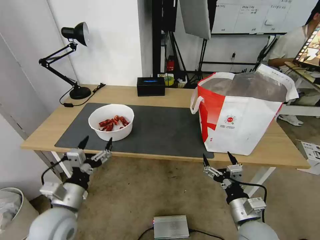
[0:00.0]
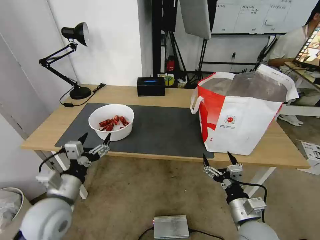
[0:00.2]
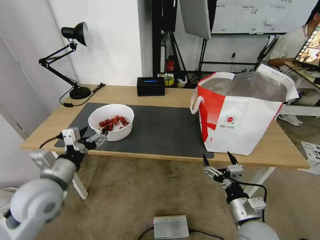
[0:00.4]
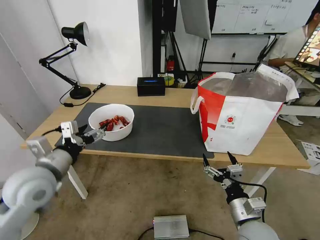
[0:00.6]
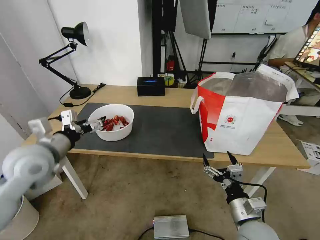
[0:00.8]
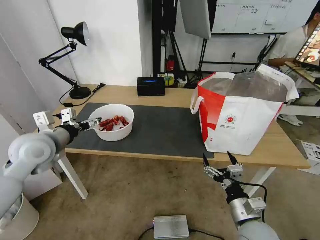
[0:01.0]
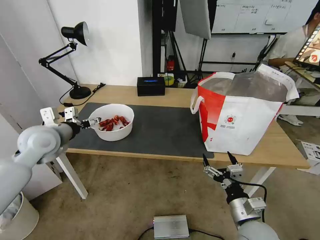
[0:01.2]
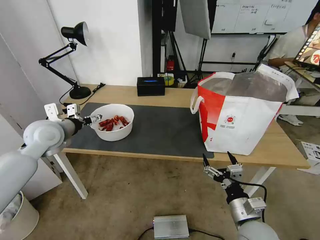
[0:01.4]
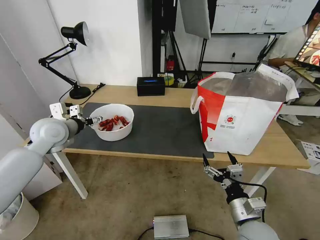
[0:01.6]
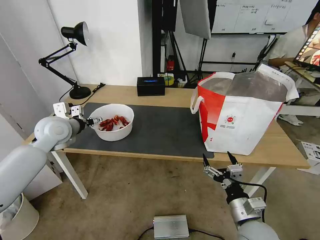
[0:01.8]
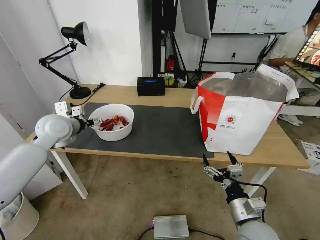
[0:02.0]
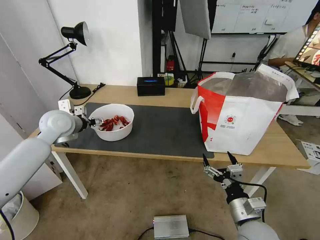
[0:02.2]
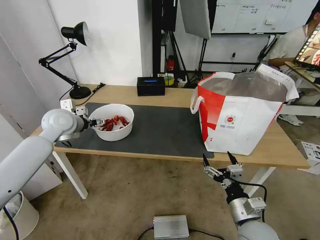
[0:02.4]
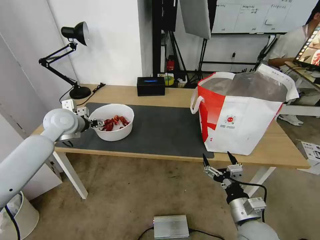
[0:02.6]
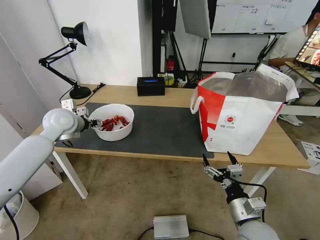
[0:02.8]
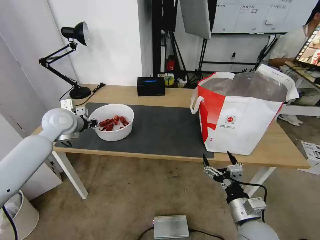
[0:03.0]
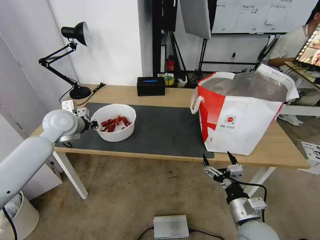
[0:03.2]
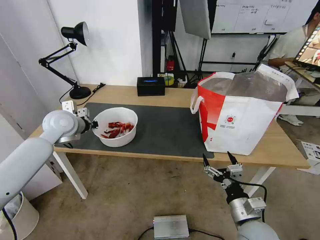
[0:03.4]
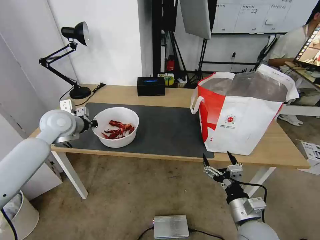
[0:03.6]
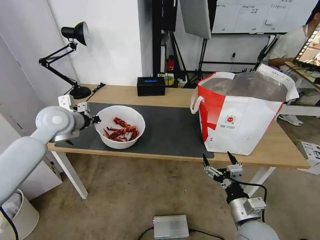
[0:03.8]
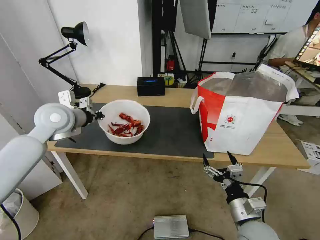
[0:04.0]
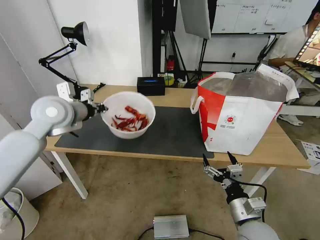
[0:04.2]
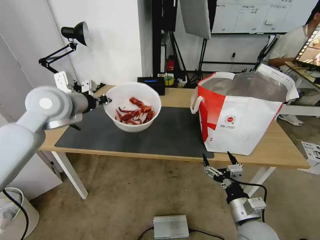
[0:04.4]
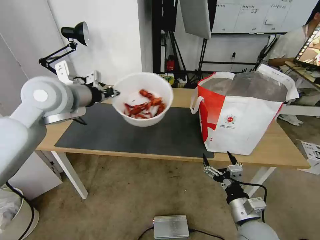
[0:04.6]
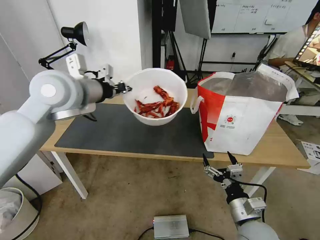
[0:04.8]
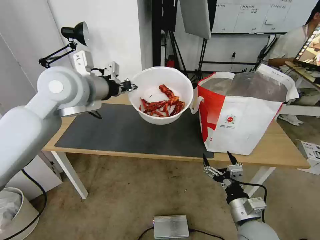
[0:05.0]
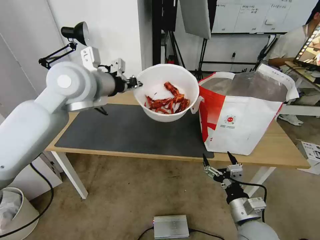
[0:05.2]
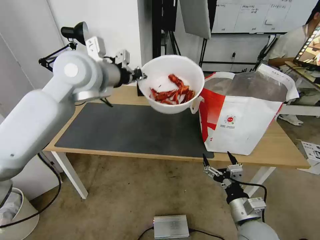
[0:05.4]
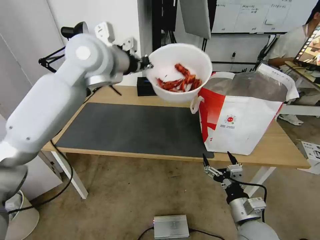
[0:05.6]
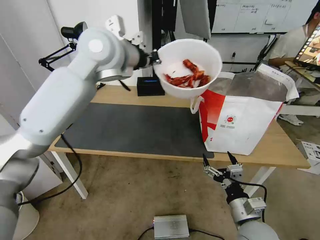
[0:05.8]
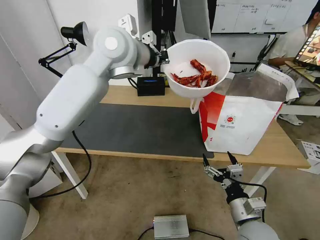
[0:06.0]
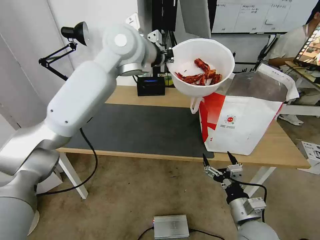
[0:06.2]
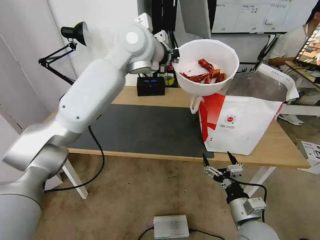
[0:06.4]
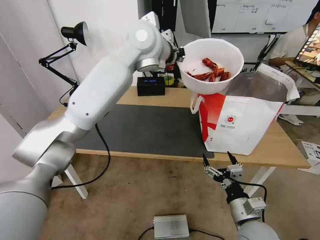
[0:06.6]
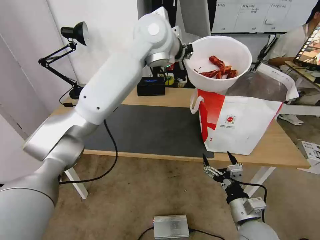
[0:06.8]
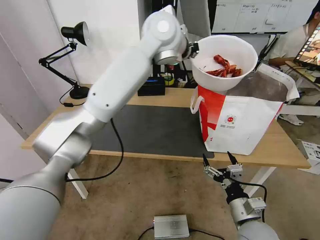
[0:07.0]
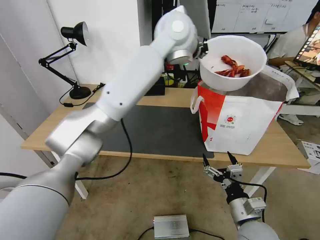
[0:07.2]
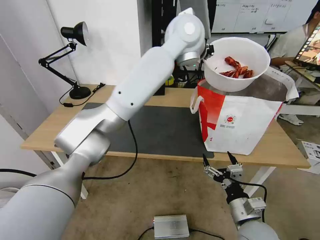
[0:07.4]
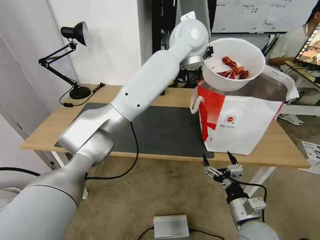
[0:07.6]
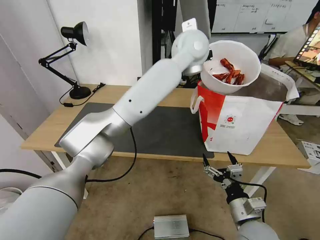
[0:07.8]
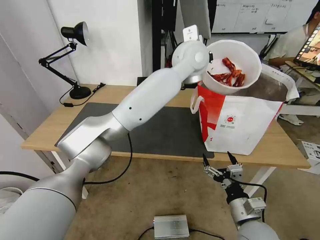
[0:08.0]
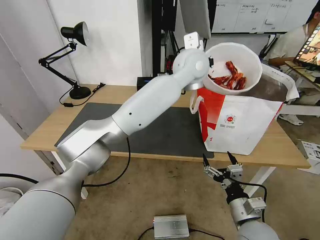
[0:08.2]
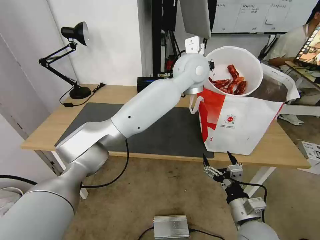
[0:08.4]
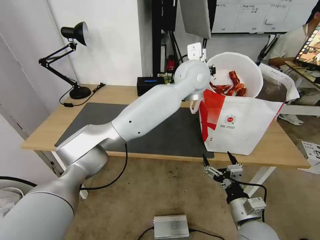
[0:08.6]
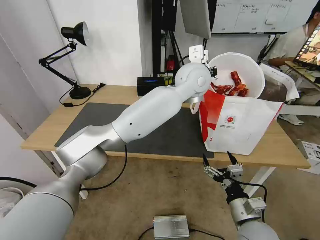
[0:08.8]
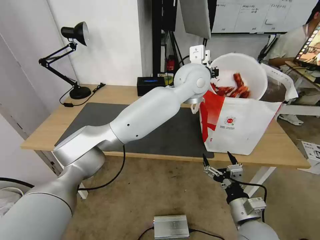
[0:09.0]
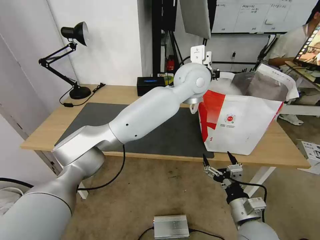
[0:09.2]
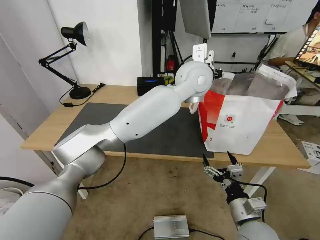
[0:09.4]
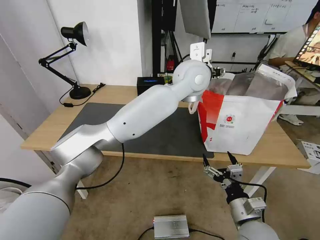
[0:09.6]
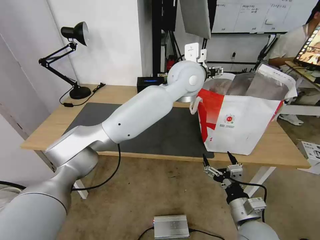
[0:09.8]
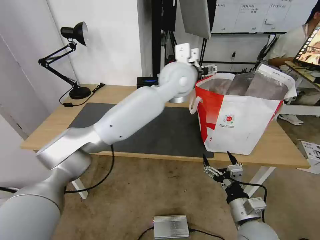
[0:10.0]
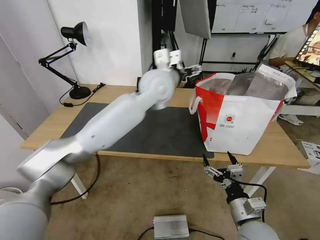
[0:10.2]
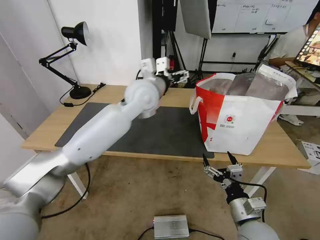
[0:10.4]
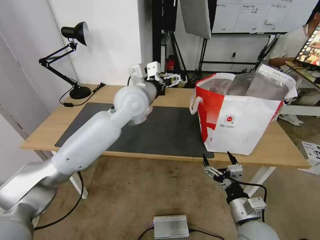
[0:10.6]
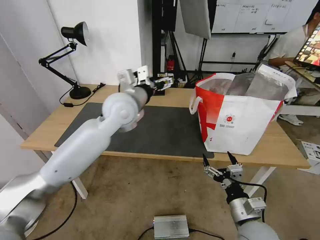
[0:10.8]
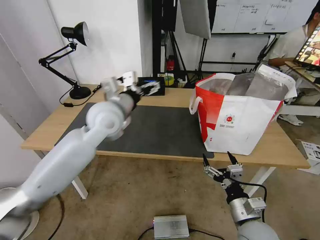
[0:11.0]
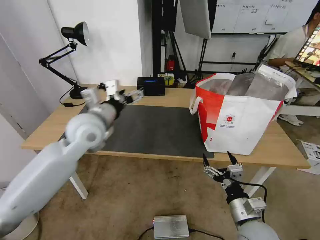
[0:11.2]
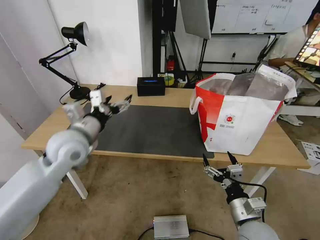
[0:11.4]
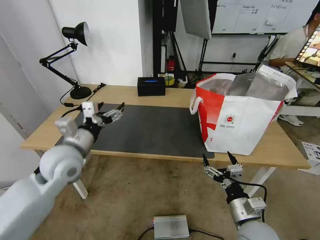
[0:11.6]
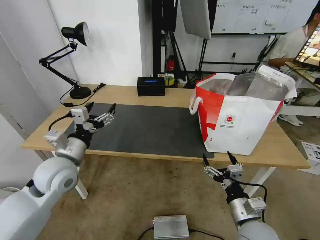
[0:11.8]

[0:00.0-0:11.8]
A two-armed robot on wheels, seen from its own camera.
Task of the whole recording: Pick up the trash from the table and place it into the takeout bag.
0:00.0 to 0:01.4: The left gripper travels forward and upward by about 25 cm.
0:01.4 to 0:03.0: The left gripper heads forward, covering approximately 5 cm, and closes its fingers.
0:03.0 to 0:04.4: The left gripper heads upward, covering roughly 10 cm, and closes.
0:04.4 to 0:06.0: The left gripper travels to the right and upward by about 20 cm.
0:06.0 to 0:07.4: The left gripper moves to the right, about 15 cm.
0:07.4 to 0:08.8: The left gripper is displaced downward by roughly 10 cm.
0:08.8 to 0:10.4: The left gripper moves to the left, some 15 cm, and opens its fingers.
0:10.4 to 0:11.8: The left gripper is displaced to the left, backward and downward by roughly 30 cm.

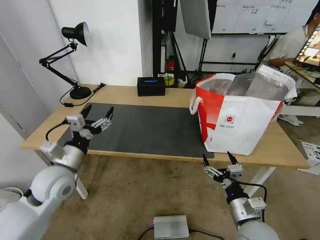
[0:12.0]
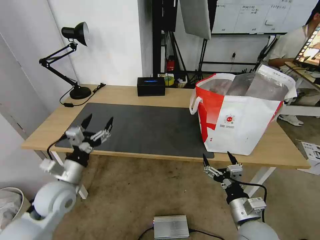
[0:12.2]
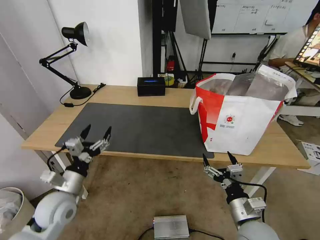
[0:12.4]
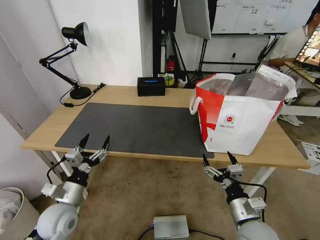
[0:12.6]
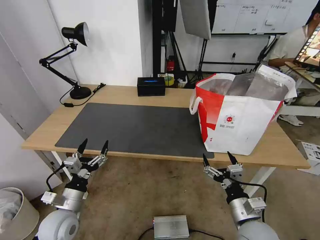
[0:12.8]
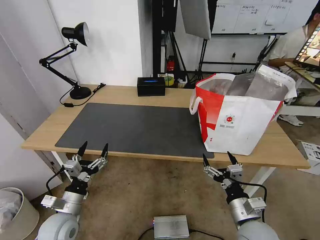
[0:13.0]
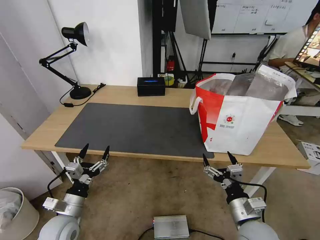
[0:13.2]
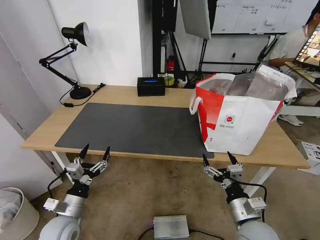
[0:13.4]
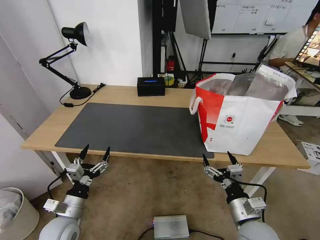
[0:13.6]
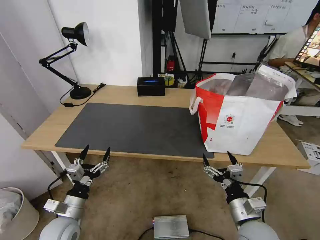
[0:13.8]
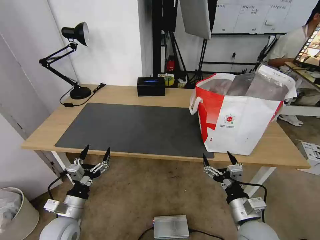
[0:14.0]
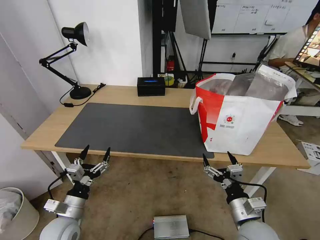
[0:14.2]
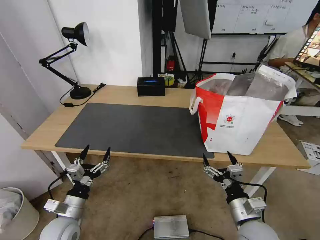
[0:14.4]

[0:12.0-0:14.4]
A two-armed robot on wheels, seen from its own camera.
Task of the whole recording: Pick up the trash from the table and place it into the takeout bag.
0:12.0 to 0:13.2: The left gripper moves downward and backward, some 15 cm.
0:13.2 to 0:14.4: Both grippers stay about where they are.

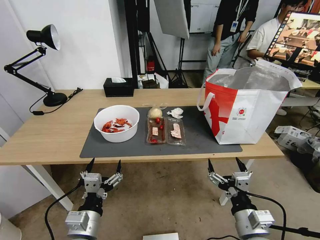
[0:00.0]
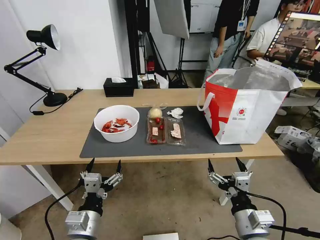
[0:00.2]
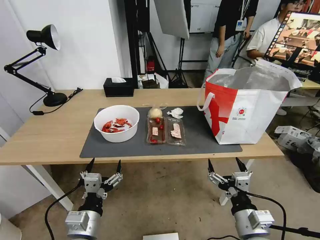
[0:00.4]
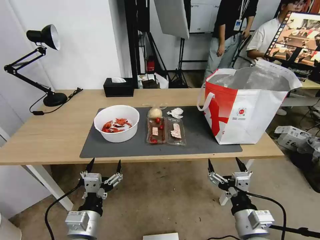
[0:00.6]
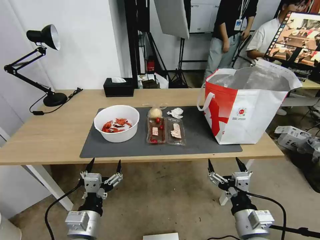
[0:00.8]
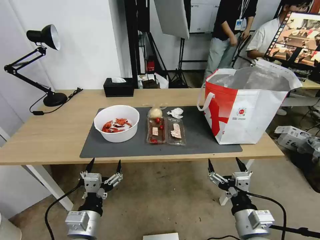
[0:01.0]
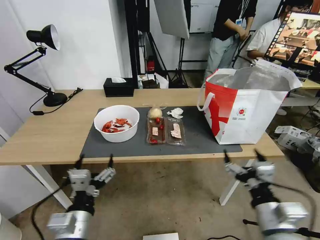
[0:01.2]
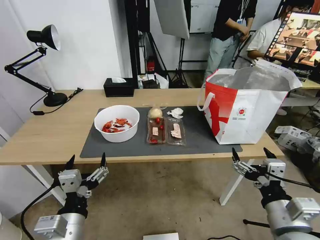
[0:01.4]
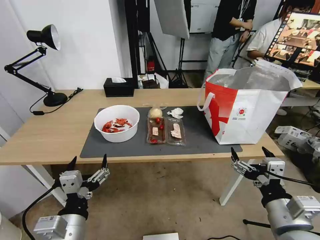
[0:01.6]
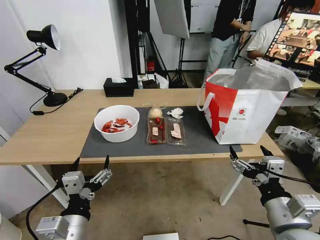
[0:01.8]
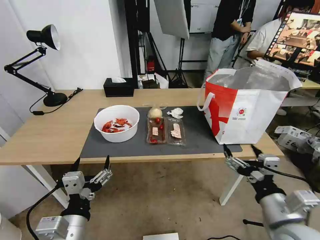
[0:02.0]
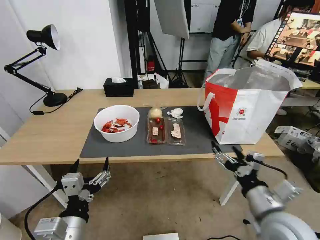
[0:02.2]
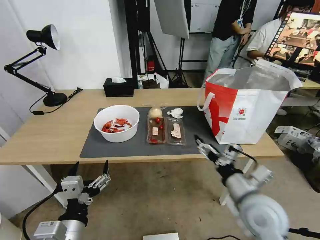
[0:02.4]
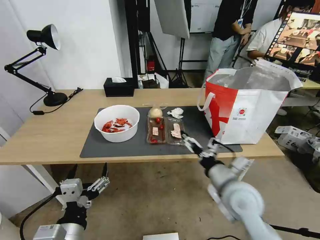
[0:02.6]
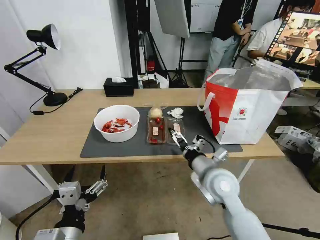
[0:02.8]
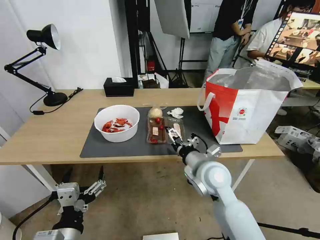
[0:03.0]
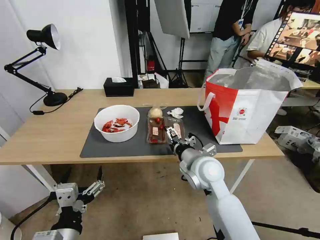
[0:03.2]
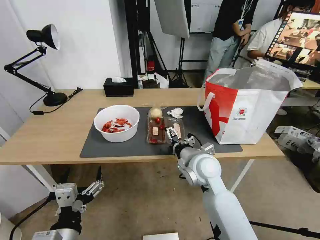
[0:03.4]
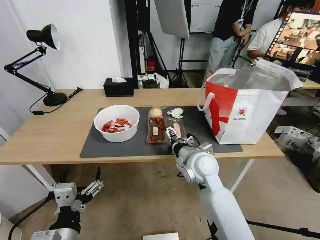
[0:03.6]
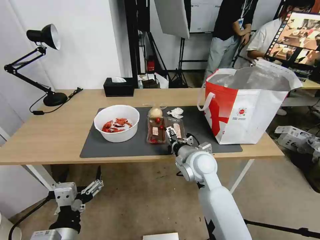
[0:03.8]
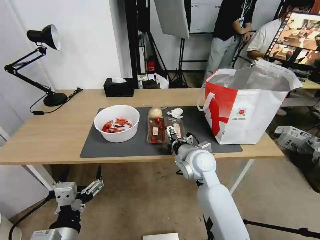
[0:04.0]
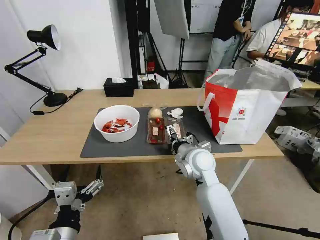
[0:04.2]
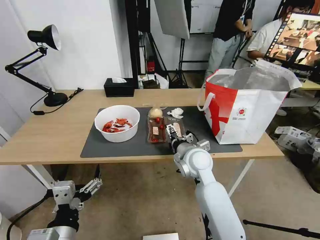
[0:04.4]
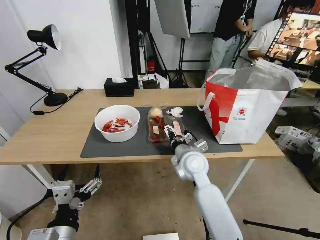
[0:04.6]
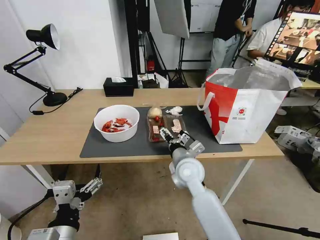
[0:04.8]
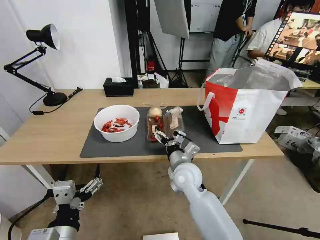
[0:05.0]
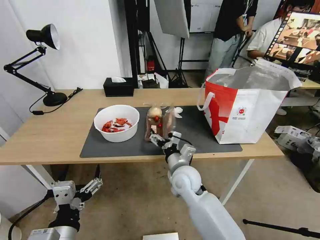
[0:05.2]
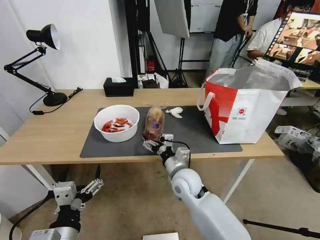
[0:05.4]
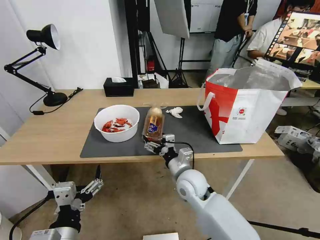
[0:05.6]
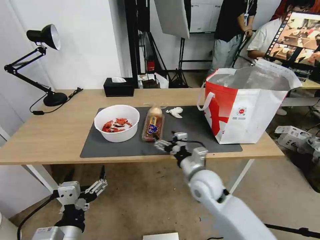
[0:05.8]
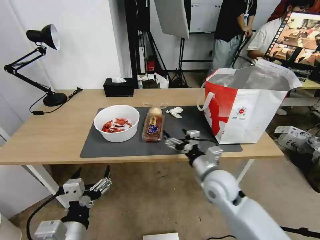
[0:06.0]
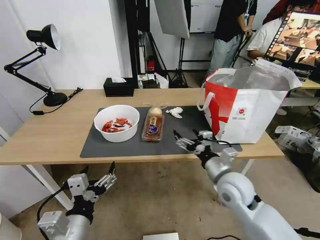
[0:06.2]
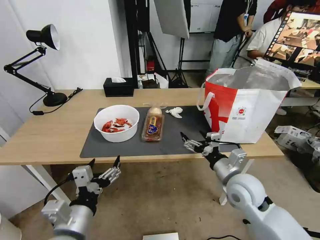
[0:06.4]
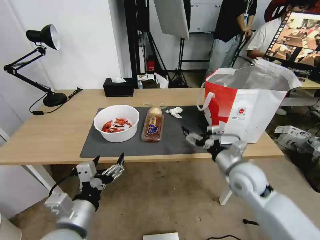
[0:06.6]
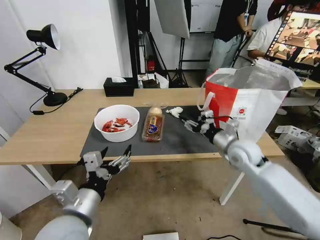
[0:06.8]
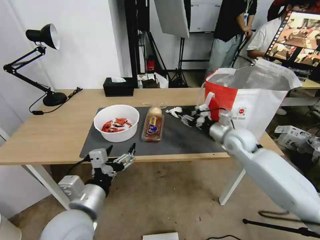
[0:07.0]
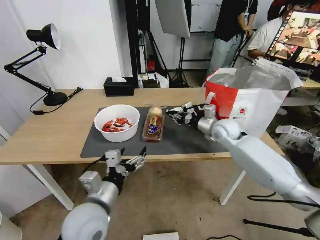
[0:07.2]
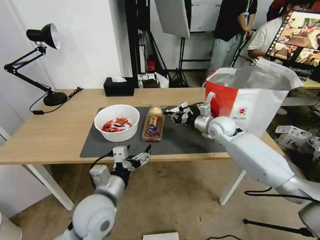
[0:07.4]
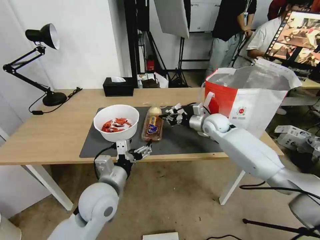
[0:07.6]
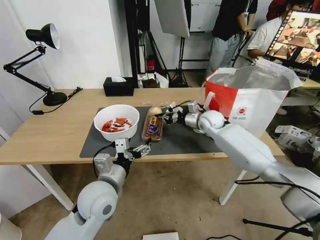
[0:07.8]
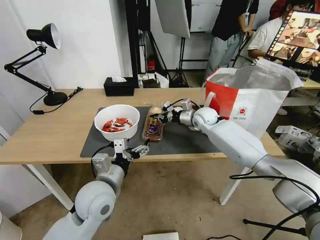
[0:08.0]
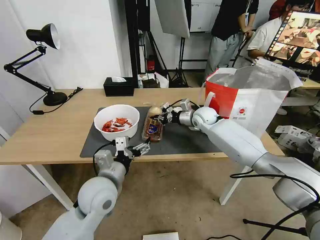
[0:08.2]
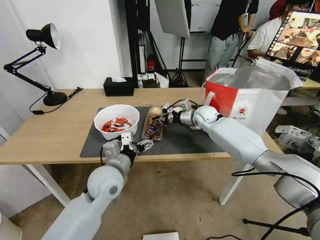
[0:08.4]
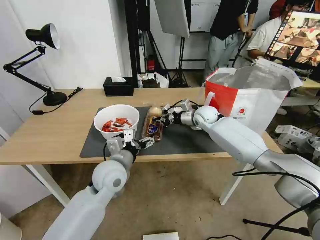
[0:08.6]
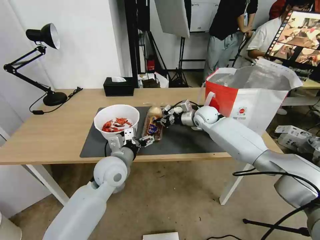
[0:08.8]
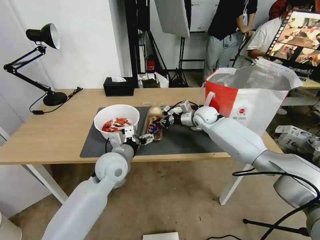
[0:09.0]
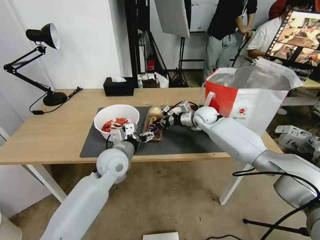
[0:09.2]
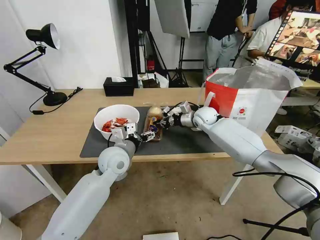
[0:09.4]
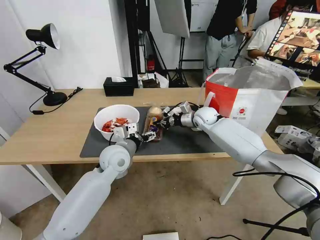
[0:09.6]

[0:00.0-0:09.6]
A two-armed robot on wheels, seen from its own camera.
Task of the whole recording: Pick up the trash from the table and place it into the takeout bag.
0:01.6 to 0:03.2: The right gripper moves forward and to the left, roughly 25 cm.
0:03.2 to 0:04.8: The right gripper moves some 5 cm.
0:04.8 to 0:06.4: The right gripper heads to the right and backward, covering roughly 15 cm.
0:06.4 to 0:08.0: The left gripper moves forward, approximately 15 cm. Meanwhile the right gripper shifts some 30 cm forward, and closes up.
0:08.0 to 0:09.6: The left gripper goes some 15 cm forward.
